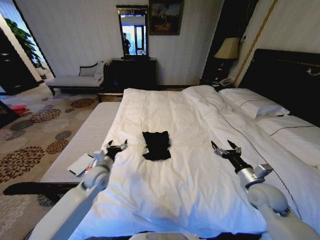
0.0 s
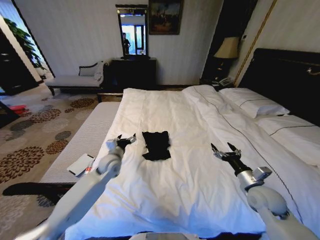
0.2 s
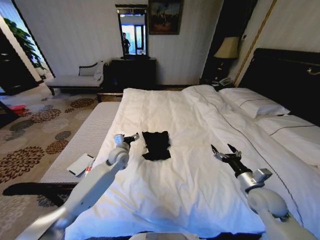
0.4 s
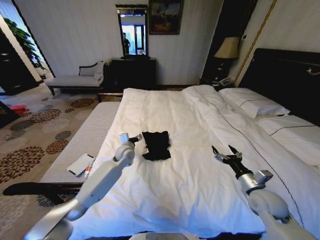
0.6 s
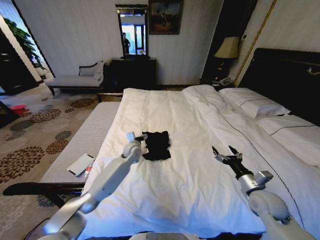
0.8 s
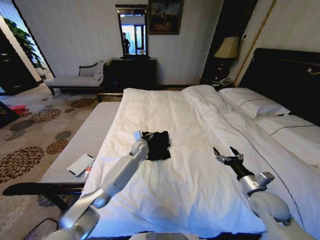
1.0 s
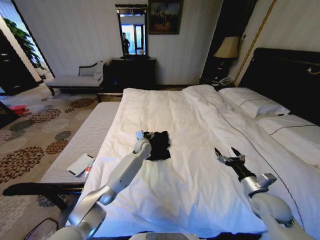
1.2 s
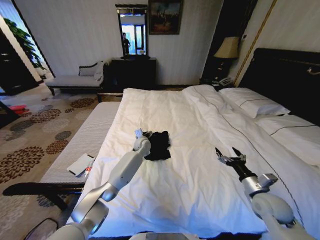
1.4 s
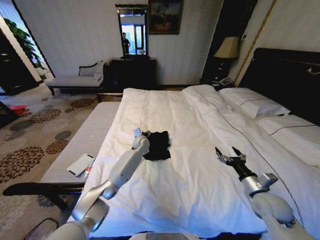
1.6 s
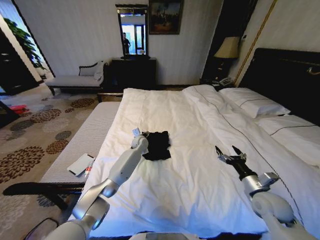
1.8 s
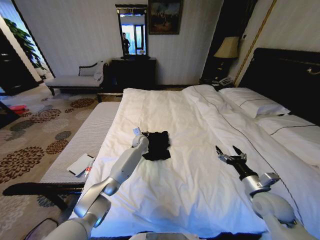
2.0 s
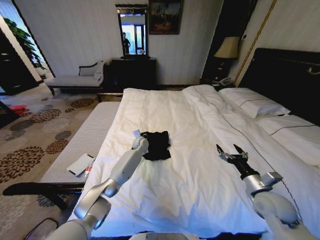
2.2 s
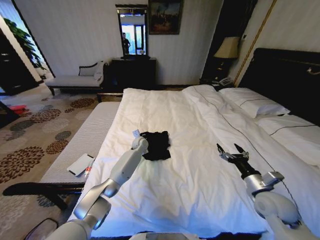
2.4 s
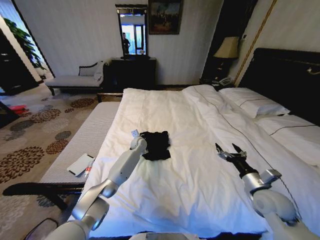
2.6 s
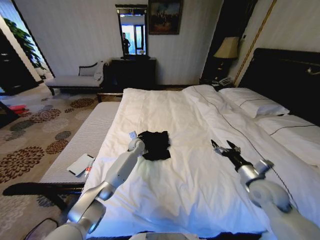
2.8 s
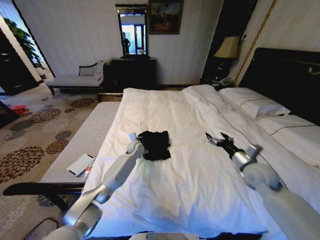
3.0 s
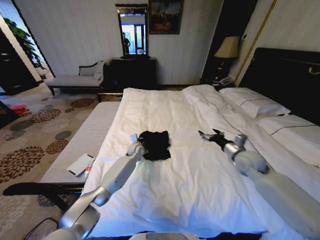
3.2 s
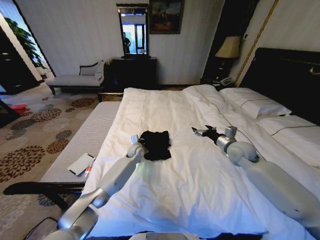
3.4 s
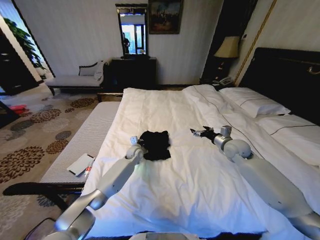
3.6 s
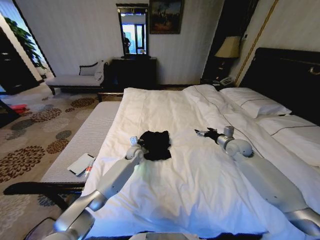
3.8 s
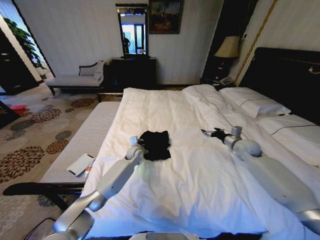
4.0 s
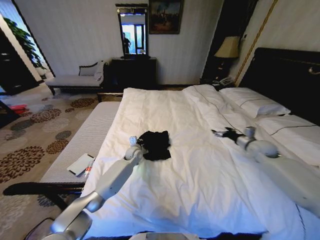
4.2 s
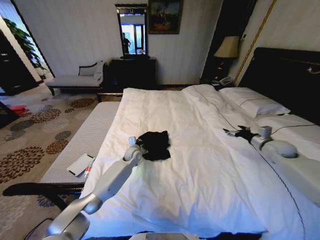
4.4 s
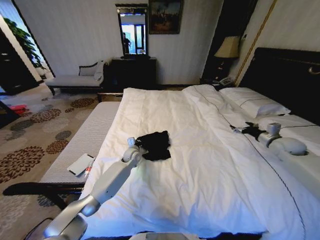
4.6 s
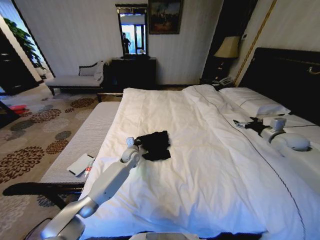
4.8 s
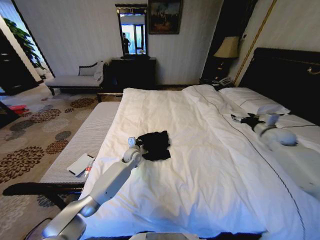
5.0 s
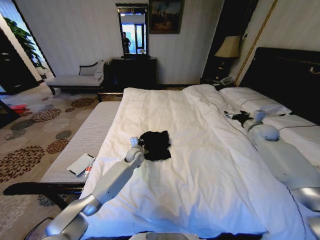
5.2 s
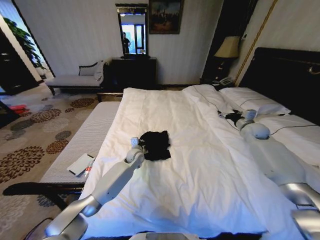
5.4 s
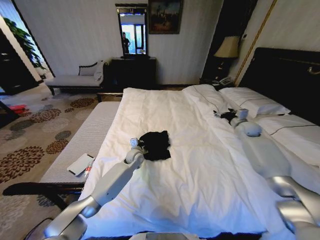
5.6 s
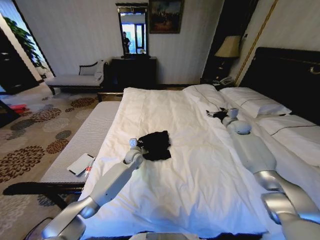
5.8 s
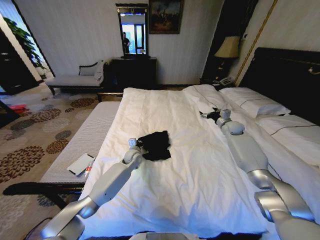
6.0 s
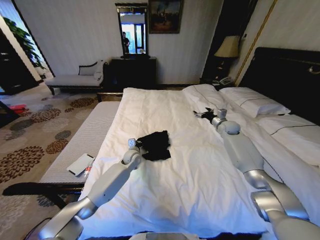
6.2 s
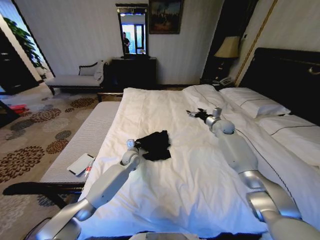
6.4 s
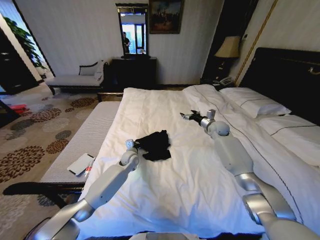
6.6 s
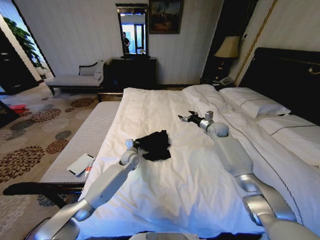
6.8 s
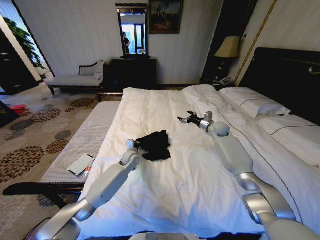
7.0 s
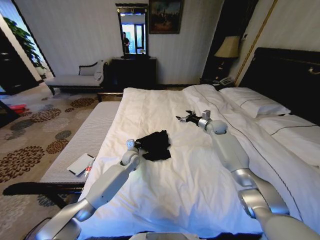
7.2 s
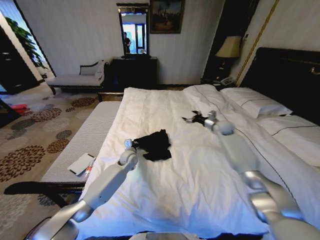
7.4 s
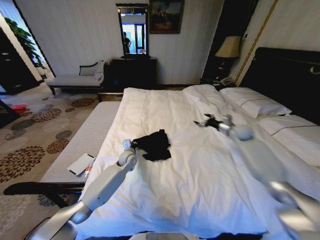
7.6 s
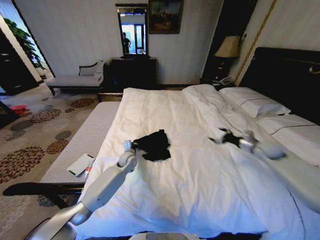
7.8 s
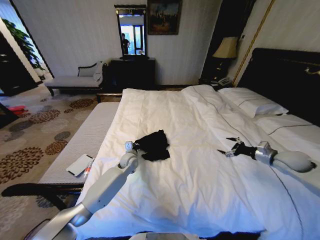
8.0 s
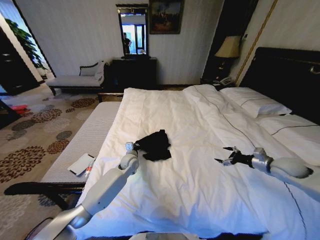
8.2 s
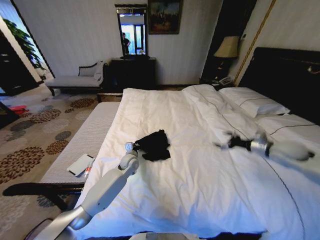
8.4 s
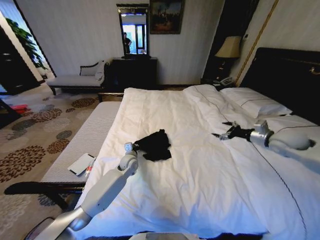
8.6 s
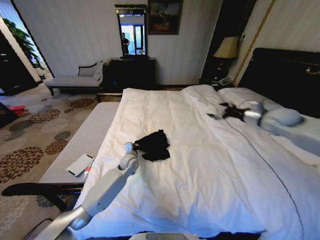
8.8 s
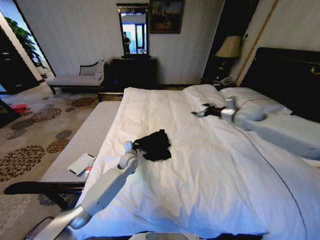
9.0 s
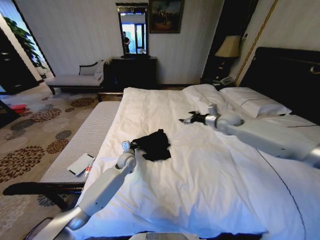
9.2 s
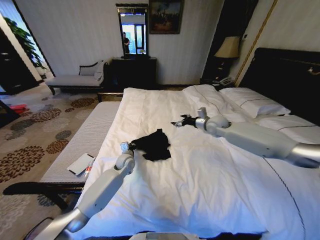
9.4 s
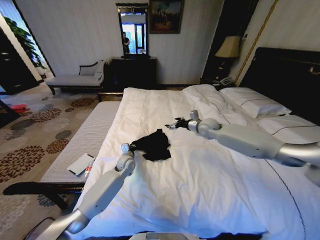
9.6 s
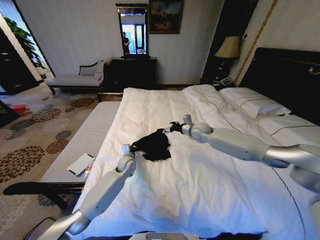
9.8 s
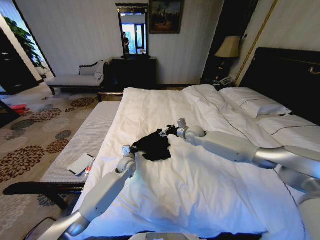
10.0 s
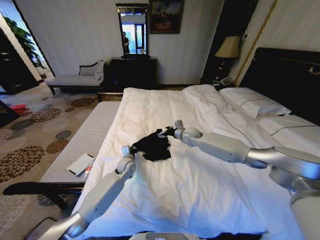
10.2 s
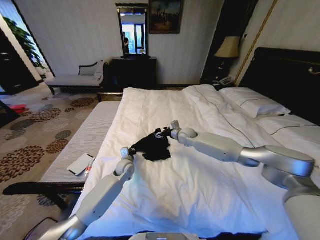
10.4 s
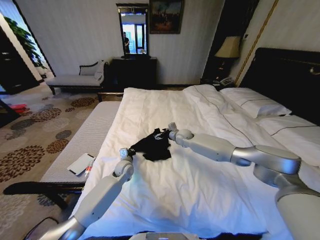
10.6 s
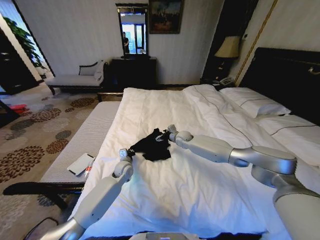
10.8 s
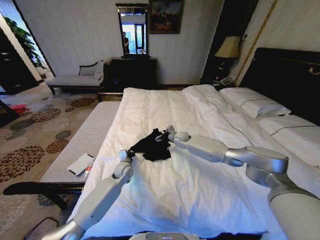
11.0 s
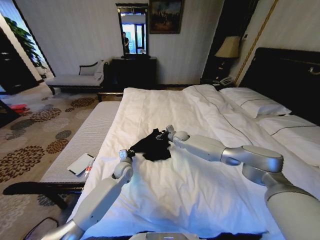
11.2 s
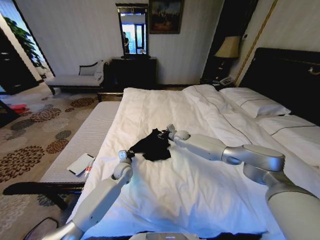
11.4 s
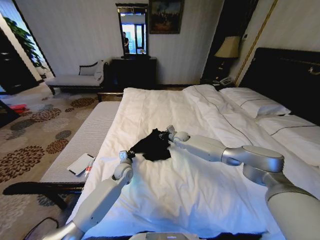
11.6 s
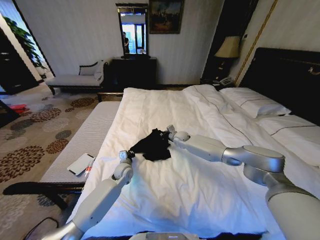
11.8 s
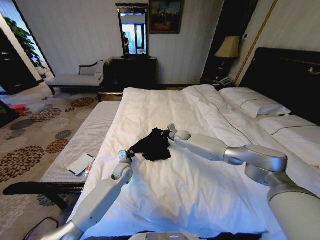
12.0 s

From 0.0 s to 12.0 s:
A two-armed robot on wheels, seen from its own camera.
Task of the whole recording: Fold the clothes on the bed.
From 0.0 s to 1.6 s: The left gripper heads forward and to the right, covering approximately 25 cm.
From 1.6 s to 3.0 s: The left gripper closes. The right gripper travels forward and upward by some 10 cm.
From 3.0 s to 4.4 s: The right gripper is displaced to the right and forward by roughly 20 cm.
From 4.4 s to 6.0 s: The right gripper heads forward and to the left, covering roughly 20 cm.
From 6.0 s to 7.6 s: The right gripper travels backward by about 5 cm, and reaches approximately 10 cm to the left, then returns.
From 7.6 s to 9.0 s: The right gripper shifts about 15 cm upward and to the left, and goes backward and returns, approximately 15 cm each way.
From 9.0 s to 10.4 s: The right gripper shifts about 25 cm to the left and downward.
From 10.4 s to 12.0 s: The right gripper shifts by about 5 cm, and closes its fingers.

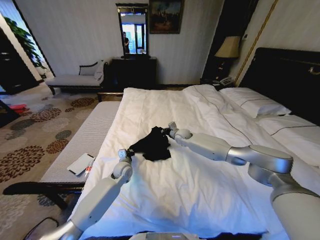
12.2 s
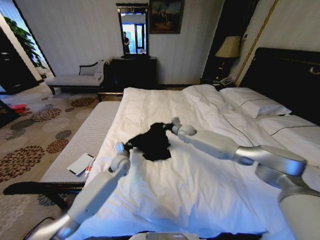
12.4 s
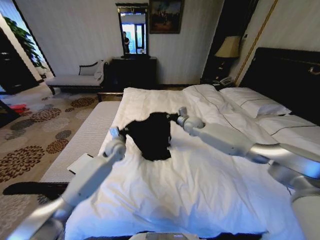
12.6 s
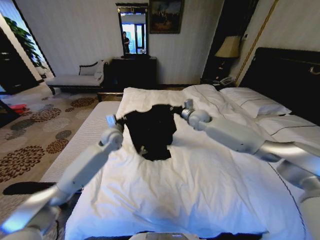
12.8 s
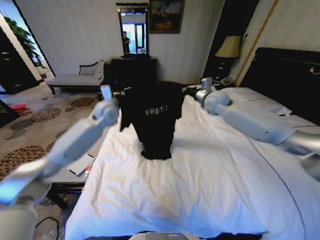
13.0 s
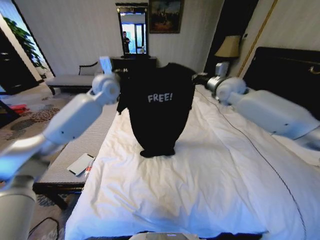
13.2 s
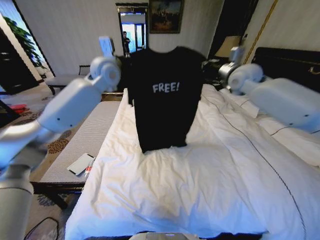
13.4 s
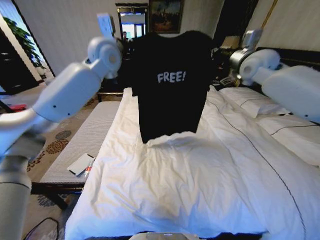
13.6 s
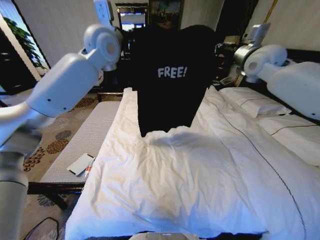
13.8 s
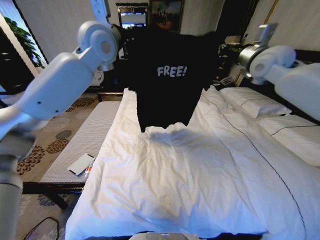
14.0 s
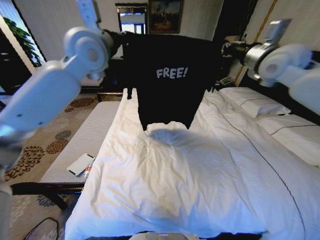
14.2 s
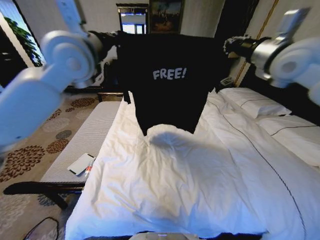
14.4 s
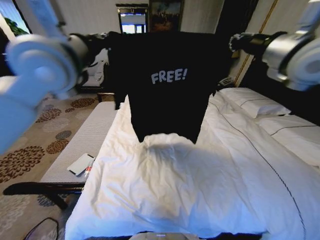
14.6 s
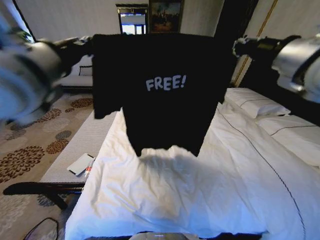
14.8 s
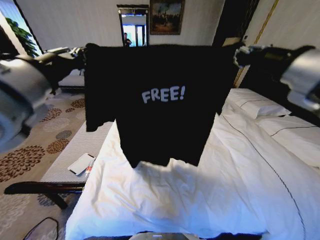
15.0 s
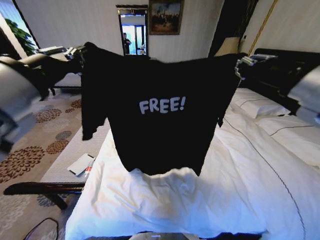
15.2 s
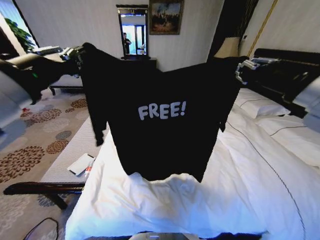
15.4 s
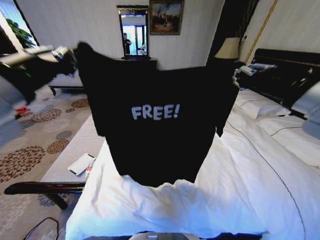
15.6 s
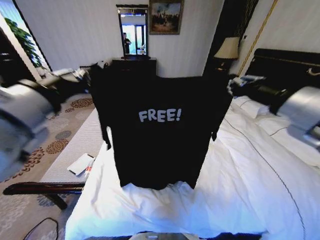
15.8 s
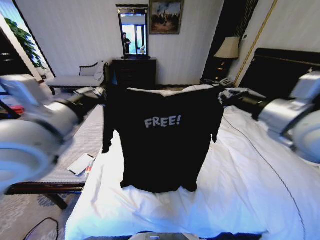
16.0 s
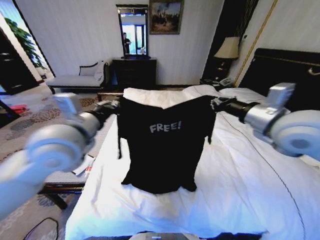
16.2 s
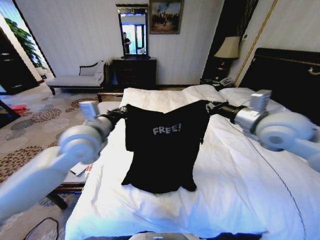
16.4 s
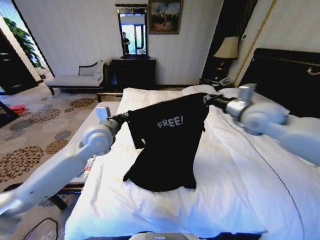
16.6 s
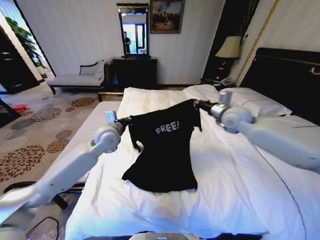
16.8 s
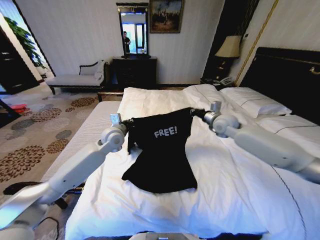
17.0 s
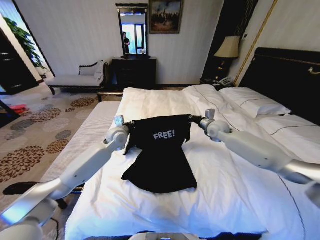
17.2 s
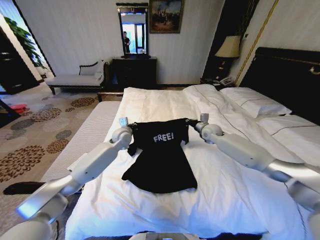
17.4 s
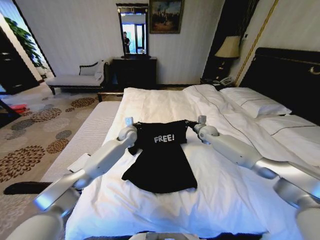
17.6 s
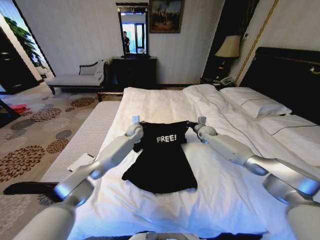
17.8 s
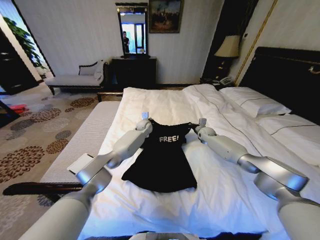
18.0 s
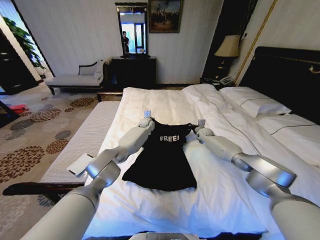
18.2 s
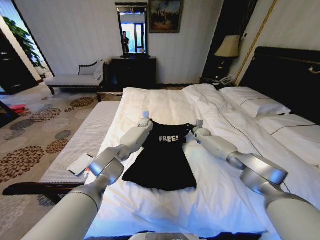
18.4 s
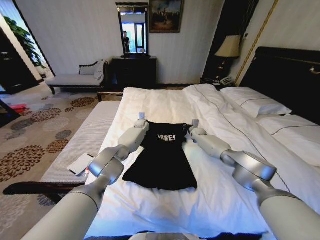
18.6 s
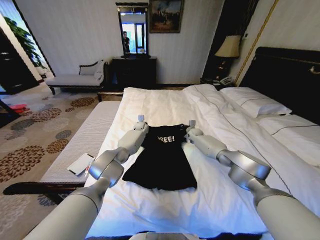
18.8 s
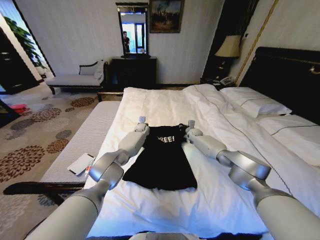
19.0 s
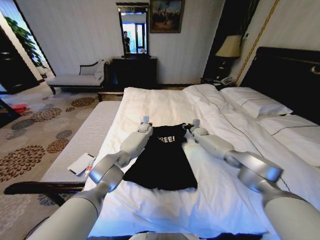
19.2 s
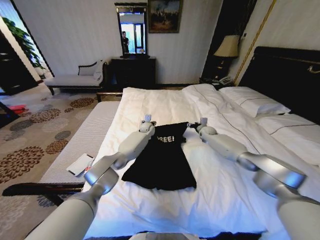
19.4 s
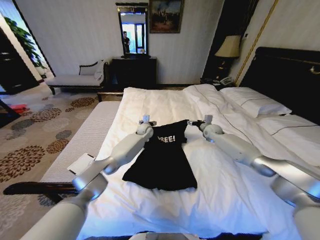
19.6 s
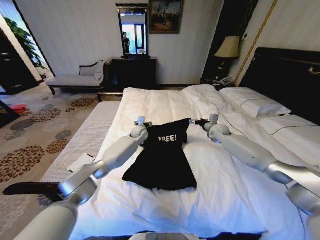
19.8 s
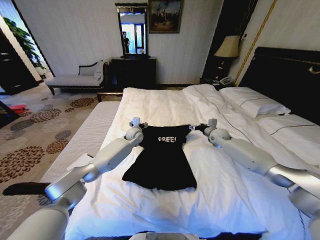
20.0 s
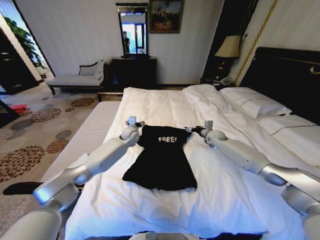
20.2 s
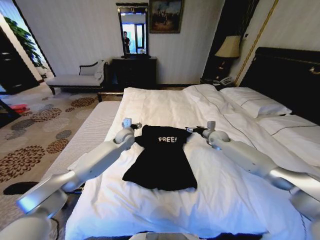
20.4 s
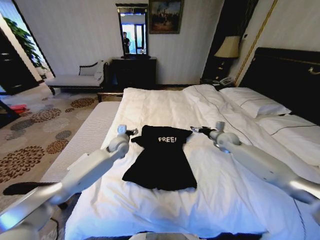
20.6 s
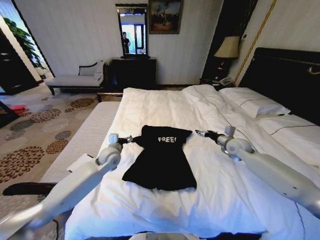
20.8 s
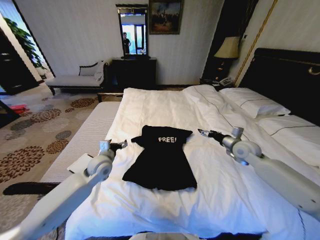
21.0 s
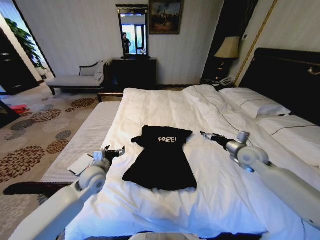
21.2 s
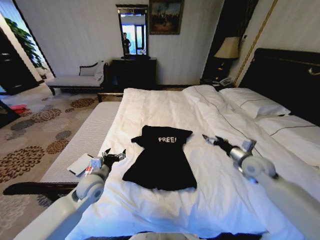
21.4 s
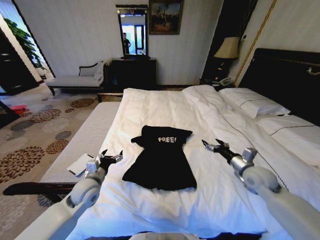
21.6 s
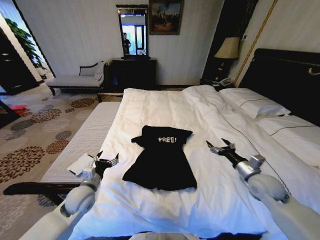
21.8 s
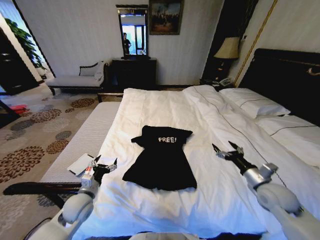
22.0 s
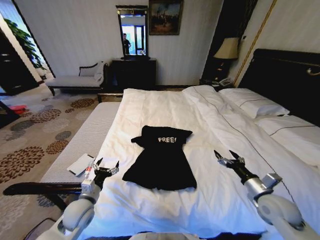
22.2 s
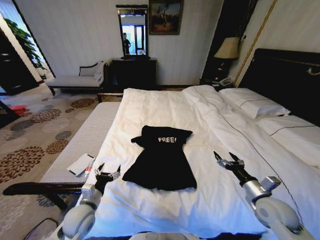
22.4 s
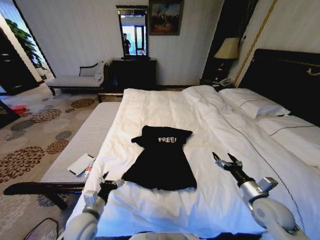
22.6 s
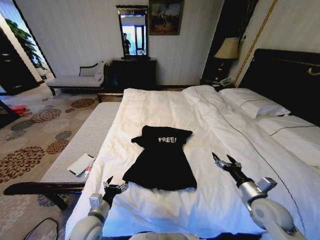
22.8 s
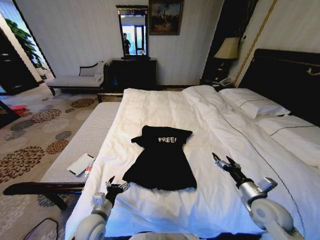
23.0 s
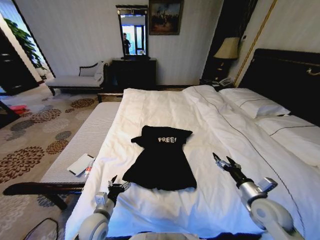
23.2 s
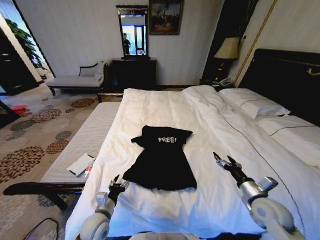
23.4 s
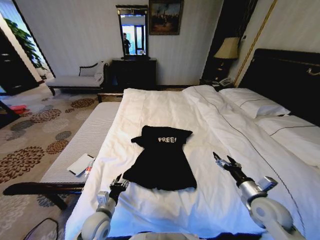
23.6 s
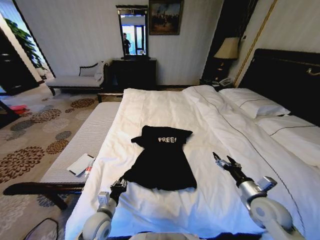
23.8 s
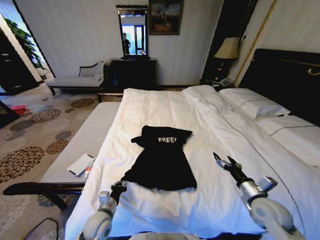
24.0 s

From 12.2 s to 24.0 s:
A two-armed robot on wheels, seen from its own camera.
Task of the whole recording: Fold the clothes on the bed.
From 12.2 s to 13.6 s: The right gripper is displaced upward and to the right by about 40 cm. The left gripper is displaced upward by approximately 50 cm.
From 13.6 s to 15.2 s: Both grippers move backward, approximately 30 cm.
From 15.2 s to 16.6 s: The right gripper is displaced forward and downward by approximately 20 cm, while the left gripper moves downward and forward, approximately 25 cm.
From 16.6 s to 18.2 s: The left gripper moves forward, downward and to the right, roughly 35 cm, while the right gripper is displaced downward and forward by about 35 cm.
From 18.2 s to 19.6 s: The left gripper shifts approximately 5 cm backward, and opens its fingers; the right gripper shifts some 5 cm upward, and opens up.
From 19.6 s to 21.0 s: The left gripper moves backward and to the left, about 30 cm, while the right gripper heads backward, covering roughly 15 cm.
From 21.0 s to 22.6 s: The left gripper is displaced backward and downward by approximately 20 cm; the right gripper goes approximately 20 cm backward.
From 22.6 s to 24.0 s: The left gripper shifts by some 5 cm, and closes.
